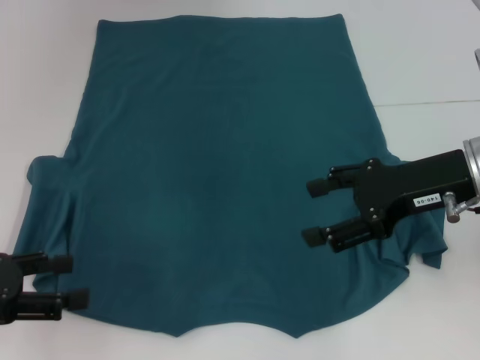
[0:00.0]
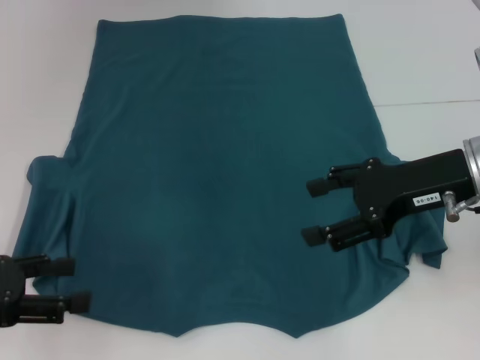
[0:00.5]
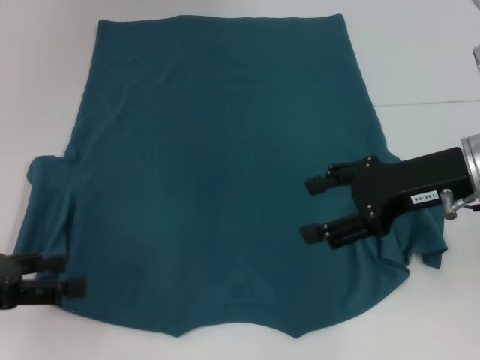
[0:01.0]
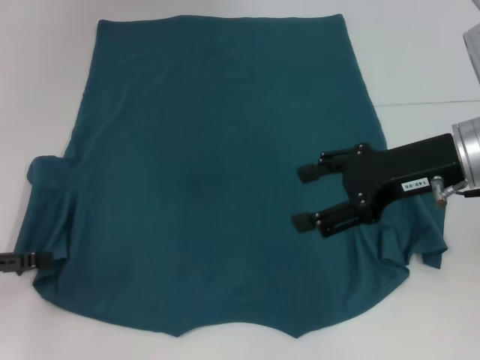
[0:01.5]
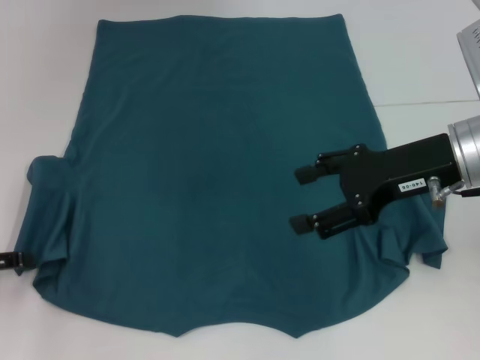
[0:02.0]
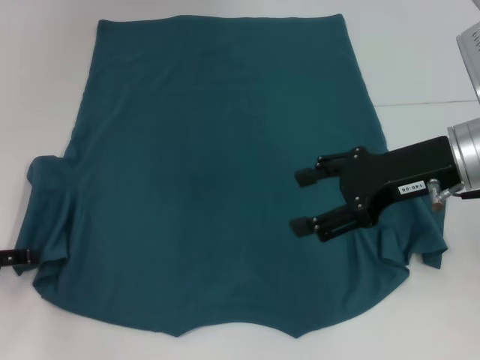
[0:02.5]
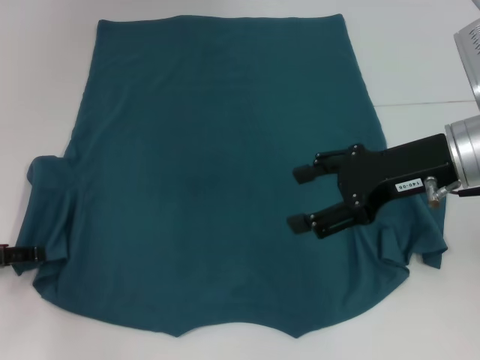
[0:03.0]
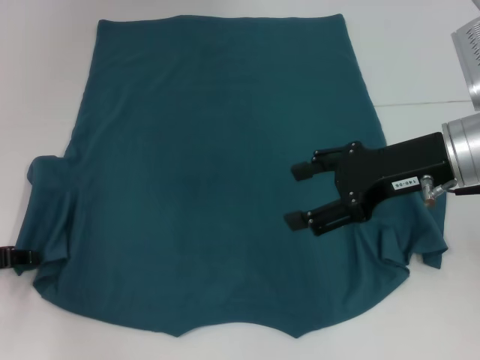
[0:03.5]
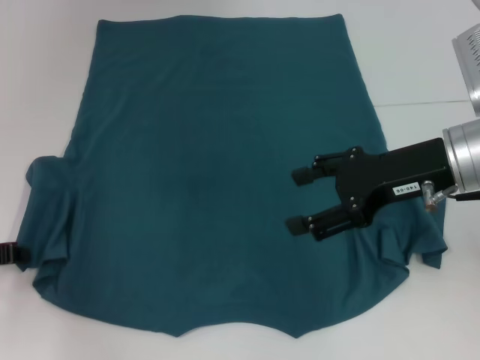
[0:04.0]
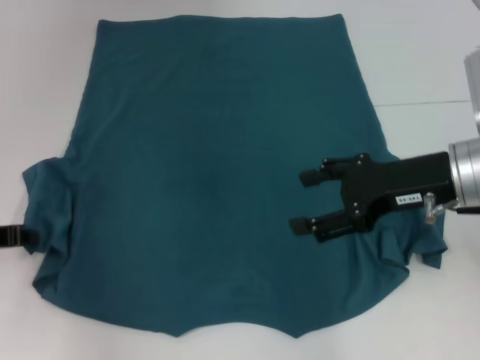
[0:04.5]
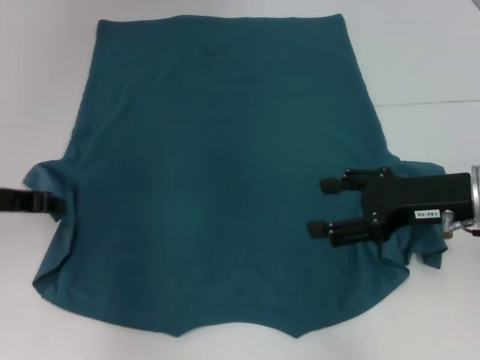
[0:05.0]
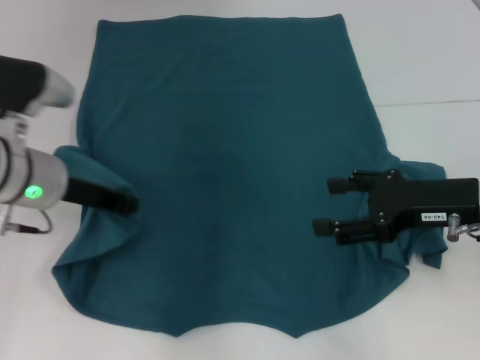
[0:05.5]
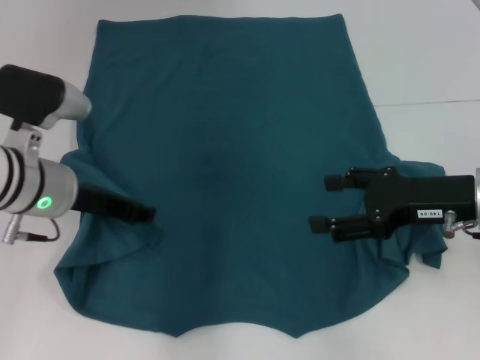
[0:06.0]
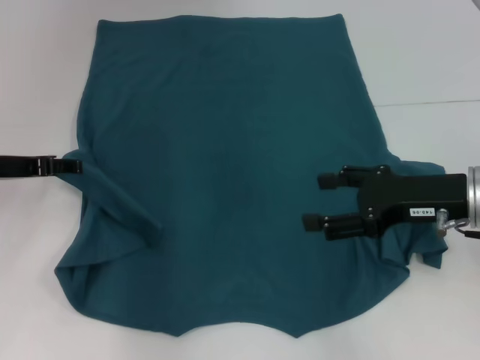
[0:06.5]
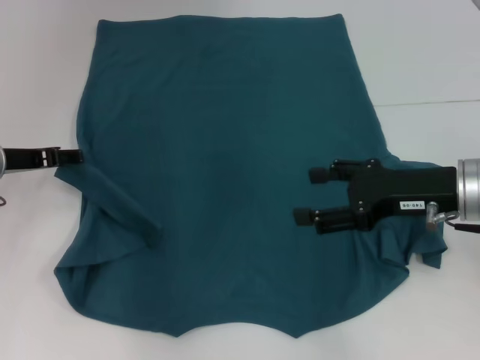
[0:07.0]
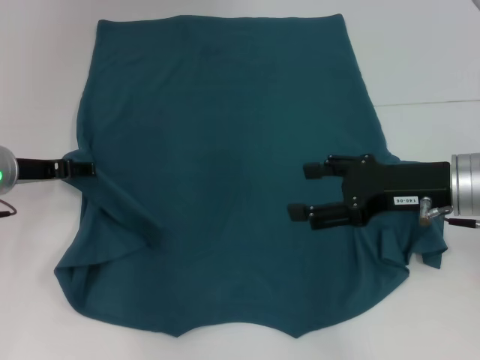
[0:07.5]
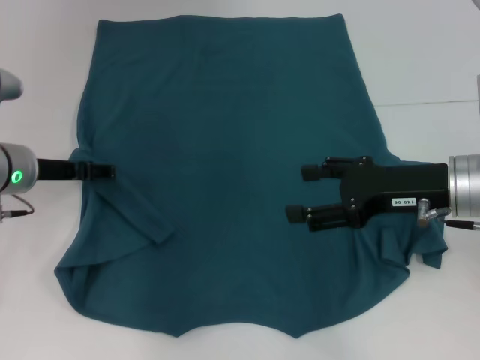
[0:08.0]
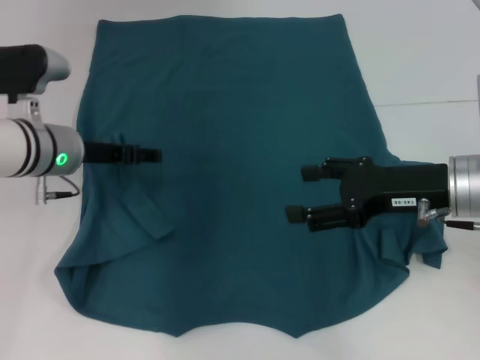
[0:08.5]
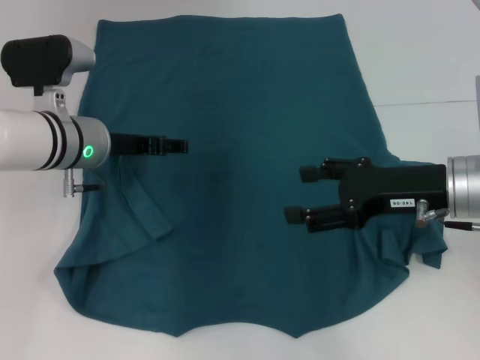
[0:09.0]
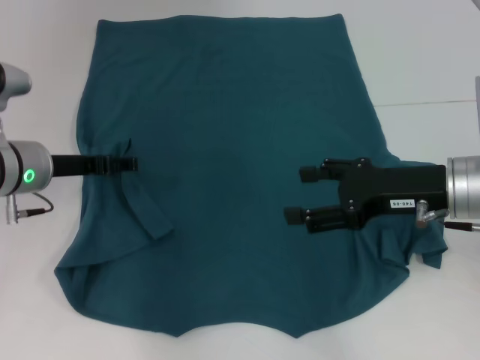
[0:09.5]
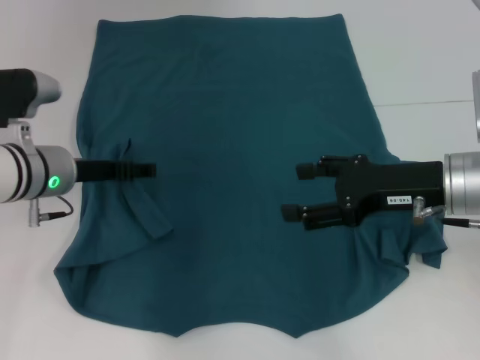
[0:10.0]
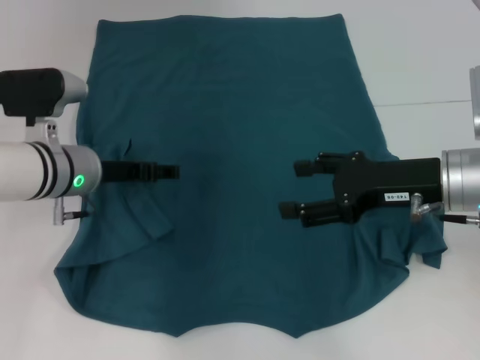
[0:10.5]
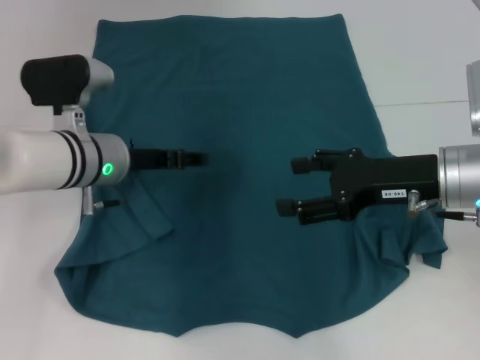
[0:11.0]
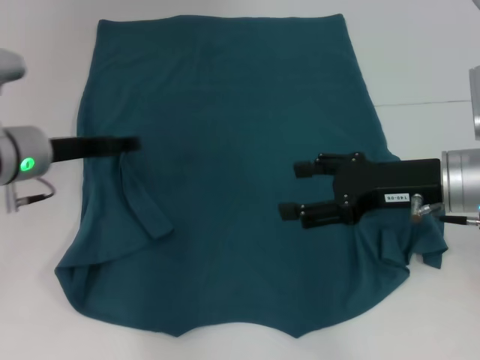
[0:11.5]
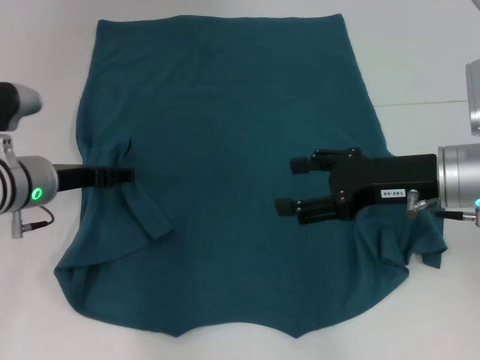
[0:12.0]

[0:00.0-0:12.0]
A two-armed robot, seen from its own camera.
0:00.0 to 0:02.0: The left gripper moves some 5 cm.
0:04.0 to 0:06.0: The left gripper moves to the right, about 15 cm, while the right gripper shifts by approximately 5 cm.
0:06.0 to 0:08.0: The left gripper moves approximately 5 cm, and opens up.
0:10.0 to 0:12.0: The grippers make only small movements.

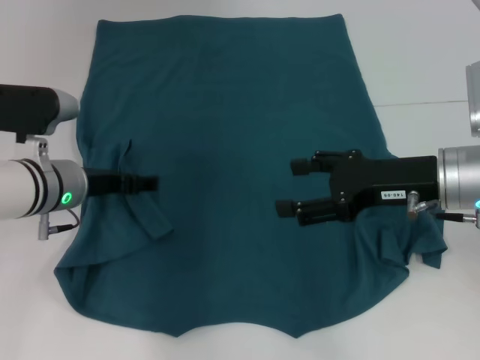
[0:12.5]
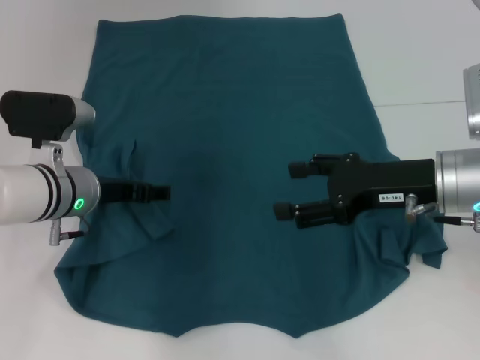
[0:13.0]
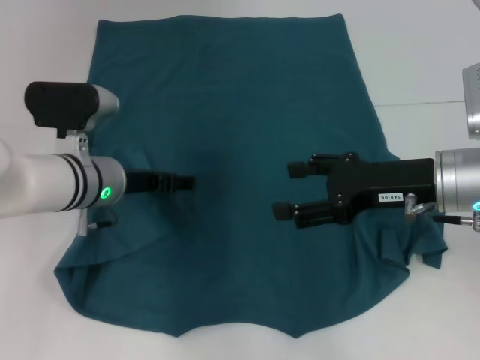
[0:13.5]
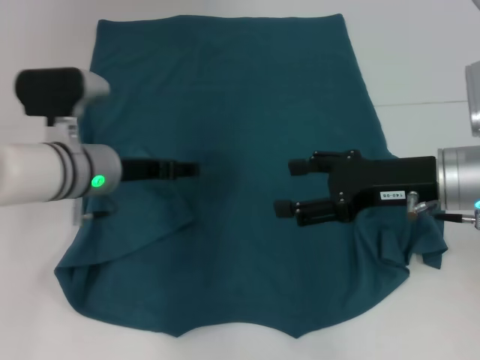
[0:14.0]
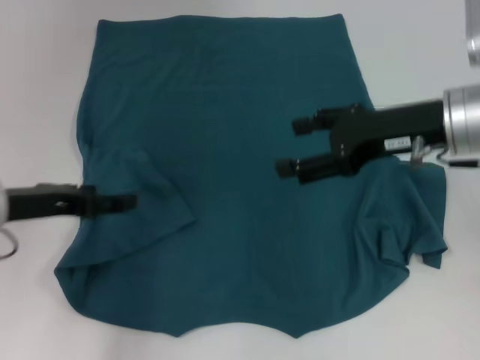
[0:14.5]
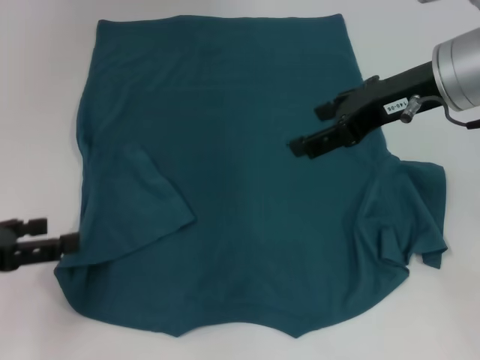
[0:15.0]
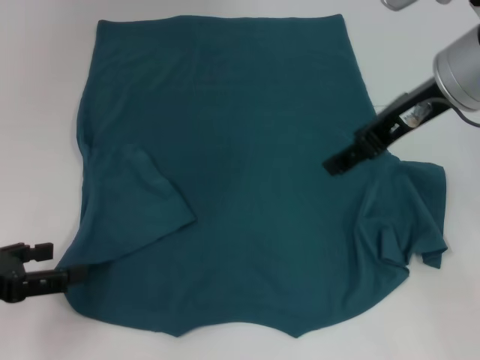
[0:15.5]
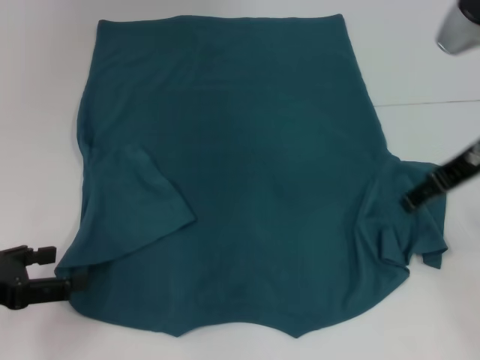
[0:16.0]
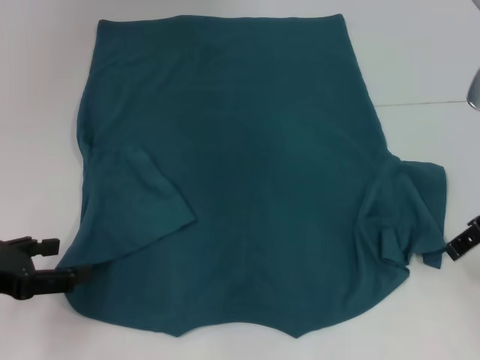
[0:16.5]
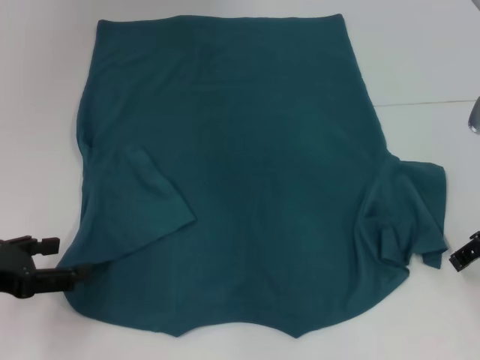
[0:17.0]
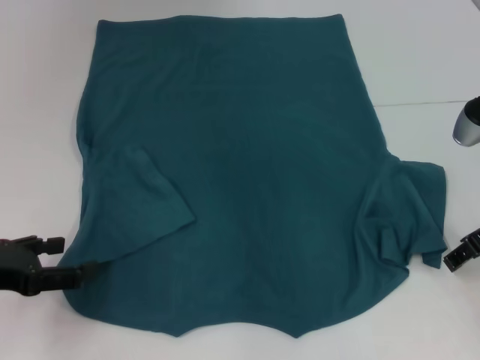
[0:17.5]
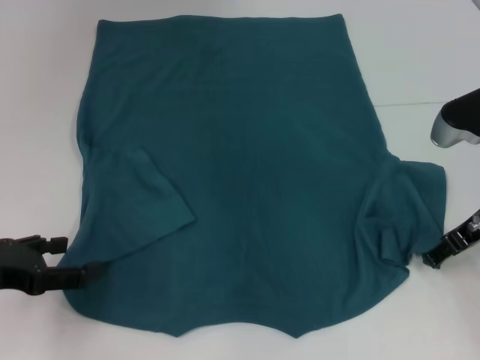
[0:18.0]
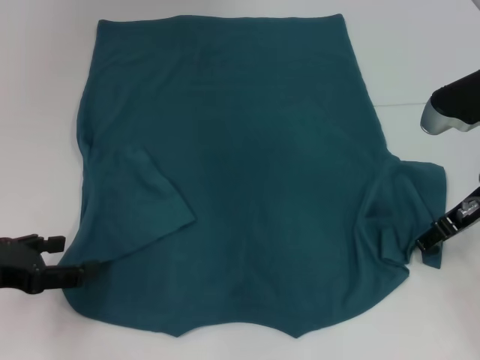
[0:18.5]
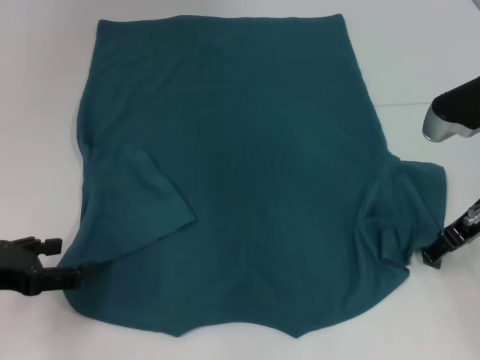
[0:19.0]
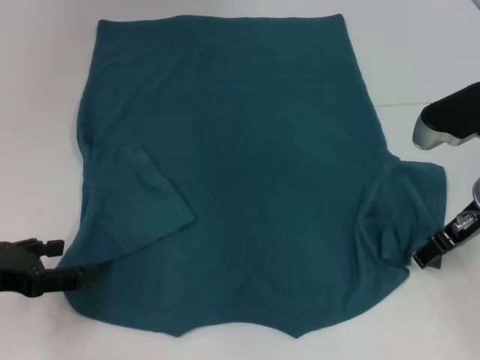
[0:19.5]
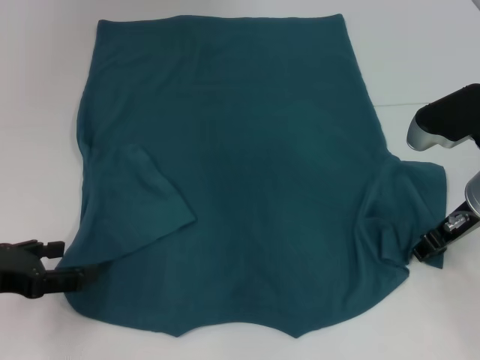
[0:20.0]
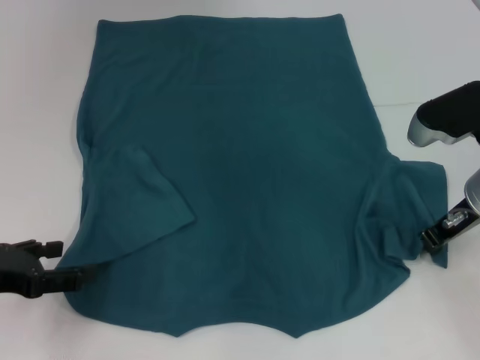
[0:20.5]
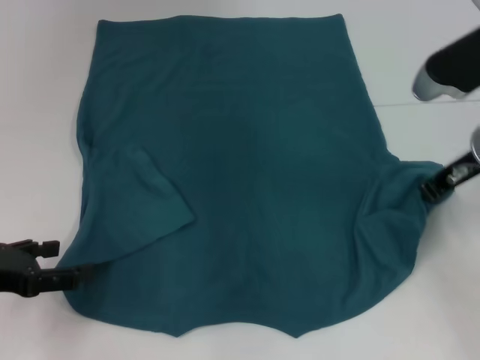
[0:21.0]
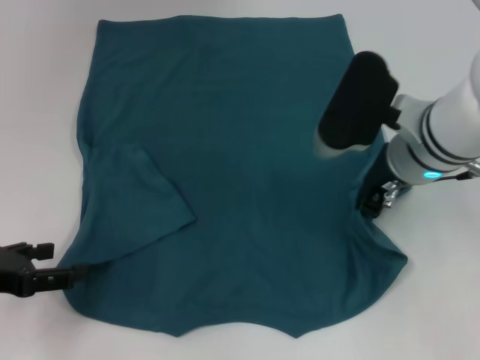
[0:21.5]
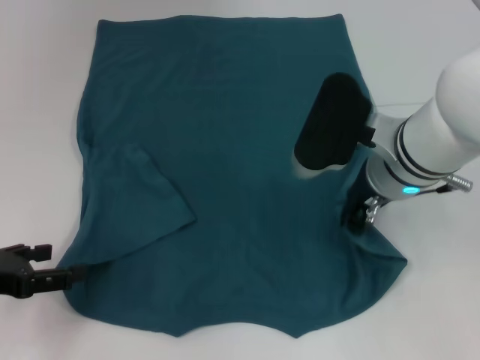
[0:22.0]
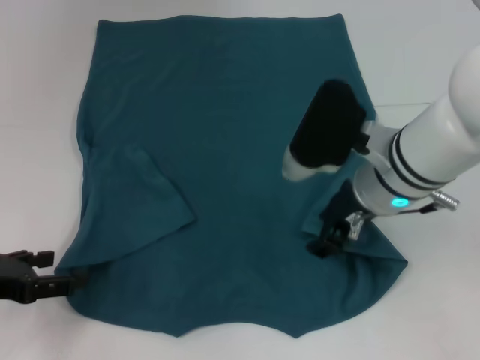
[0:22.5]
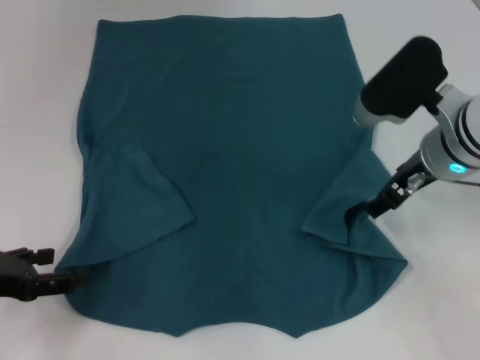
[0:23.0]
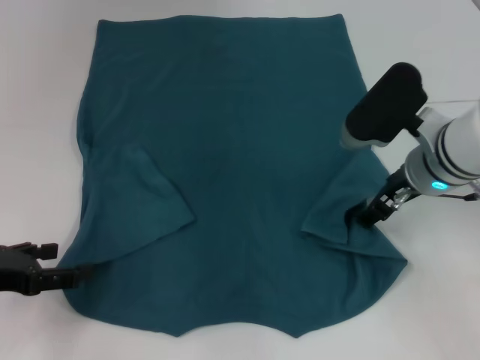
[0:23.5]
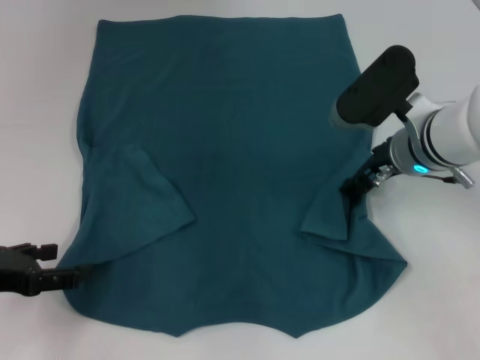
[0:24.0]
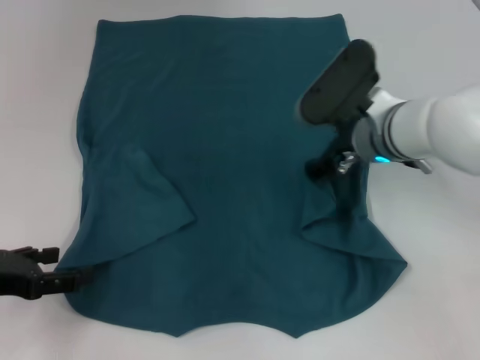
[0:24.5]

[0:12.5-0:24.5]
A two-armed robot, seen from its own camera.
0:12.5 to 0:14.5: The right gripper goes about 5 cm upward. The left gripper goes about 10 cm backward and to the left.
0:14.5 to 0:16.5: The left gripper is displaced backward and to the left by about 10 cm, while the right gripper moves to the right, some 5 cm.
0:16.5 to 0:18.5: The right gripper shifts about 5 cm downward.
0:18.5 to 0:20.5: The right gripper closes its fingers.
0:20.5 to 0:22.5: The right gripper moves to the left, some 10 cm.
0:22.5 to 0:24.5: The right gripper heads forward, covering about 5 cm, and opens up.

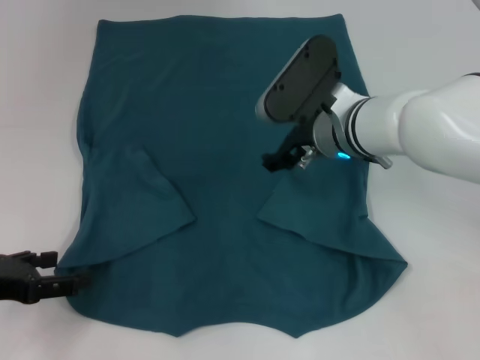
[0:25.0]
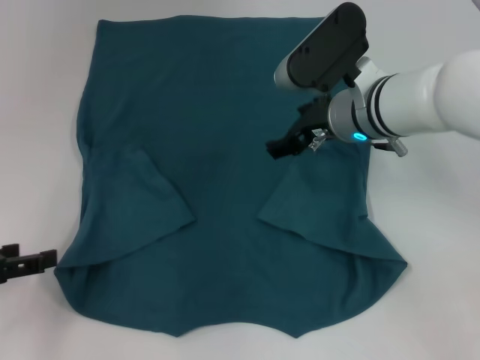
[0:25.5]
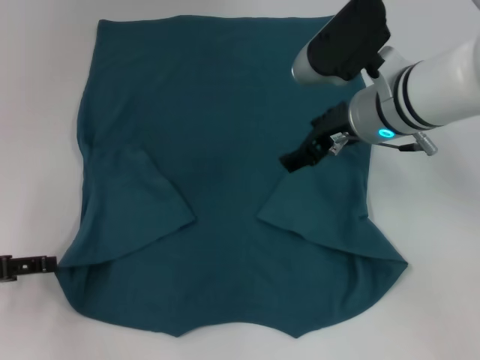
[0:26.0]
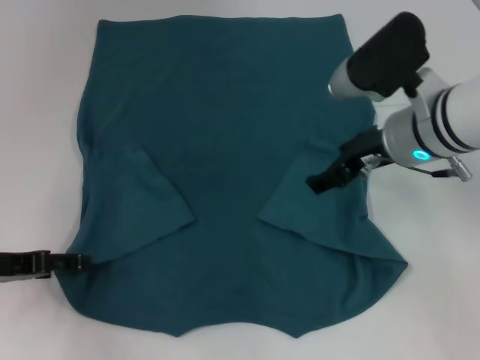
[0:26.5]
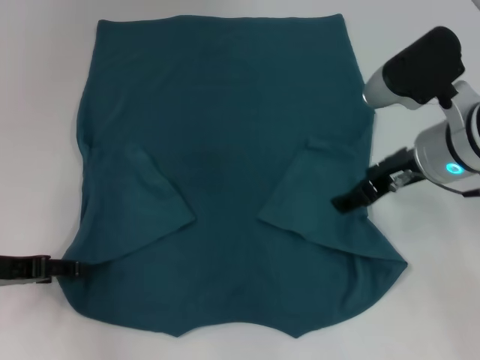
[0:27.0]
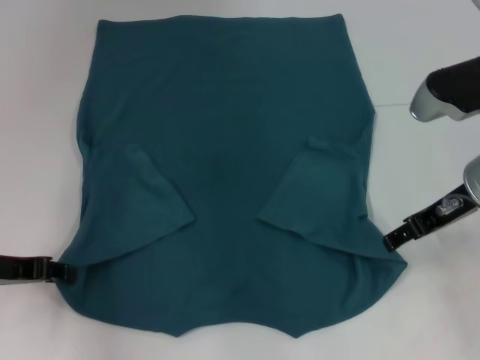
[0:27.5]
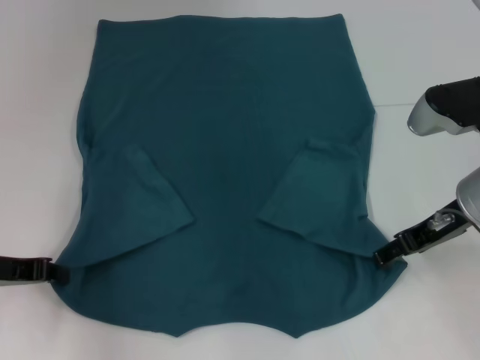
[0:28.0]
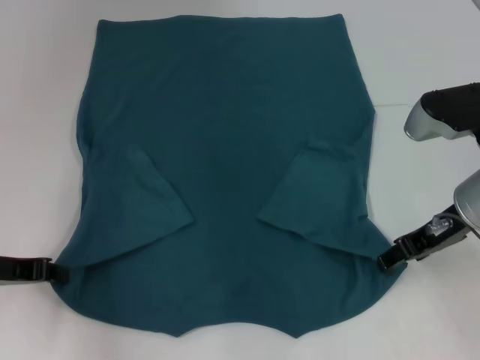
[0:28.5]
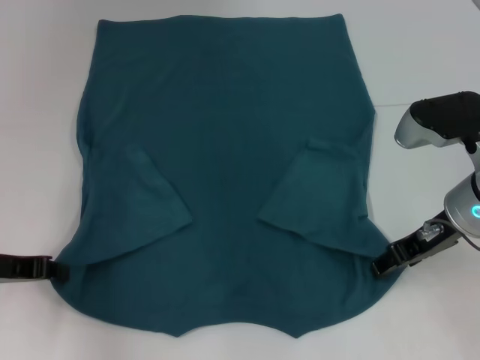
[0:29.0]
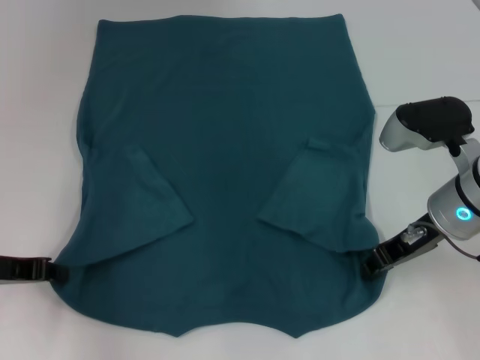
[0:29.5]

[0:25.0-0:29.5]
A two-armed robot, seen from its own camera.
Step, 0:26.0 to 0:28.0: Grab the bottom left corner with your left hand.
0:25.0 to 0:27.0: The right gripper travels to the right by about 10 cm.
0:27.0 to 0:29.5: The right gripper moves some 5 cm, and closes its fingers.
